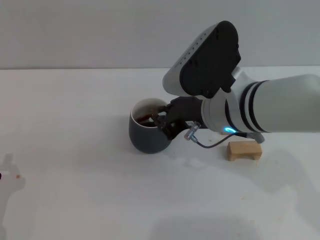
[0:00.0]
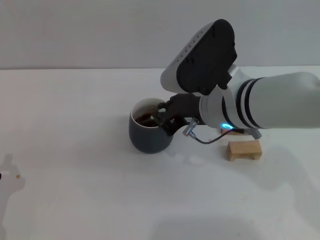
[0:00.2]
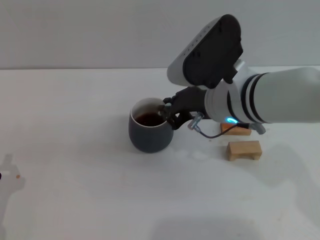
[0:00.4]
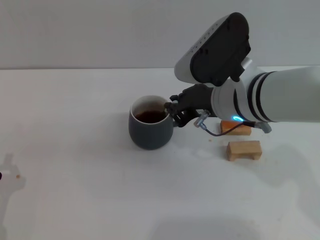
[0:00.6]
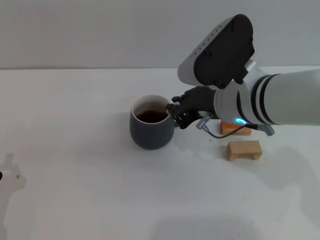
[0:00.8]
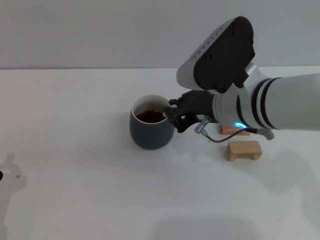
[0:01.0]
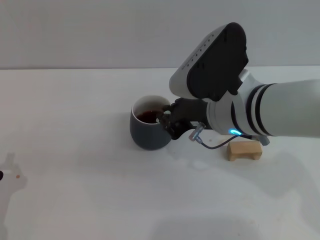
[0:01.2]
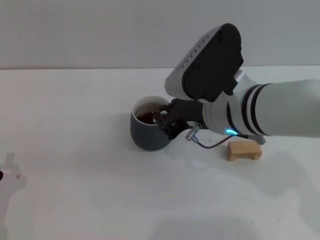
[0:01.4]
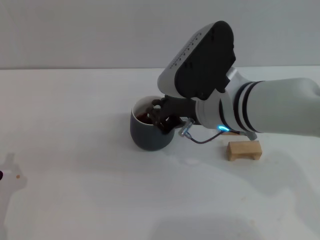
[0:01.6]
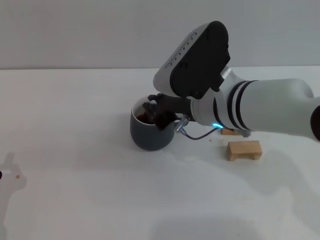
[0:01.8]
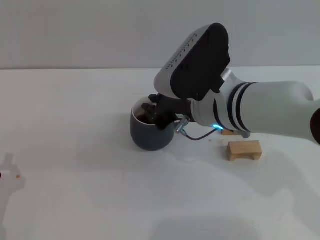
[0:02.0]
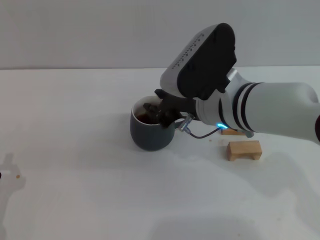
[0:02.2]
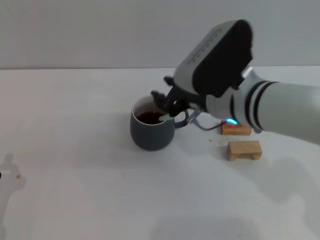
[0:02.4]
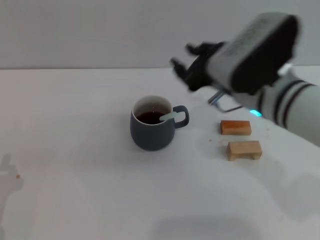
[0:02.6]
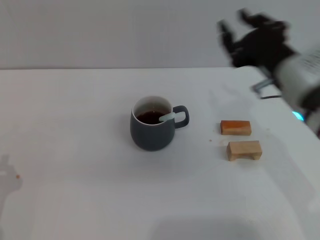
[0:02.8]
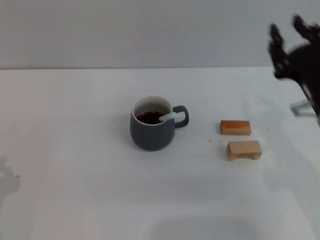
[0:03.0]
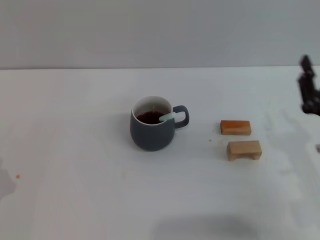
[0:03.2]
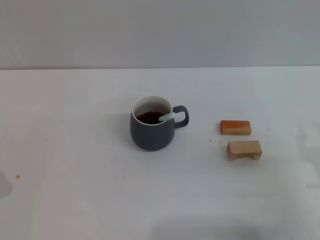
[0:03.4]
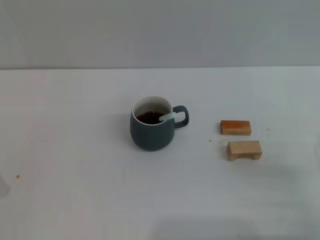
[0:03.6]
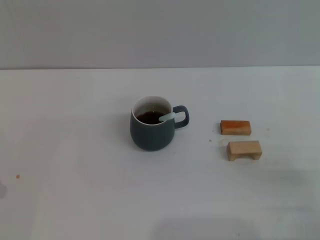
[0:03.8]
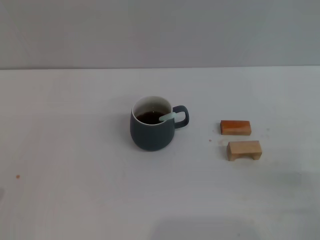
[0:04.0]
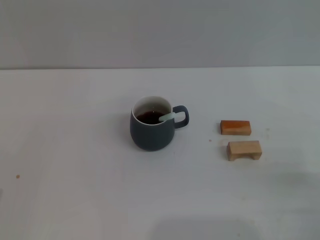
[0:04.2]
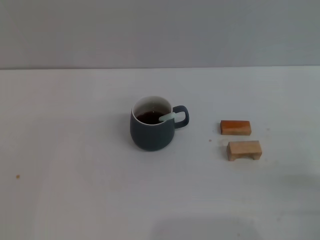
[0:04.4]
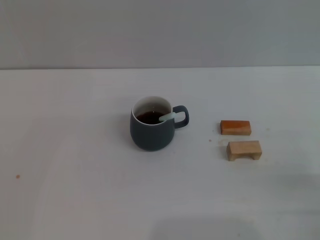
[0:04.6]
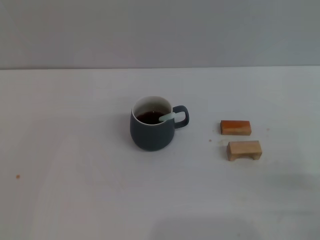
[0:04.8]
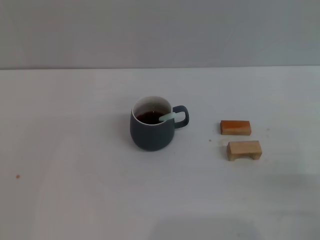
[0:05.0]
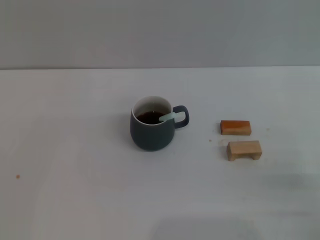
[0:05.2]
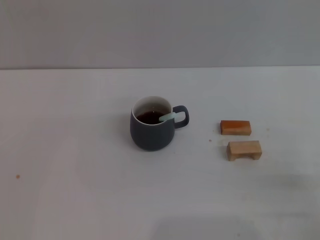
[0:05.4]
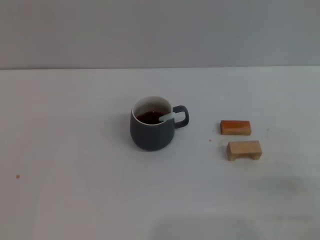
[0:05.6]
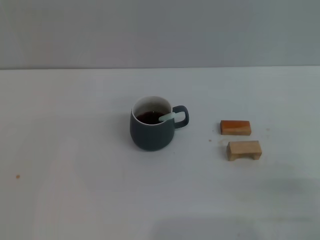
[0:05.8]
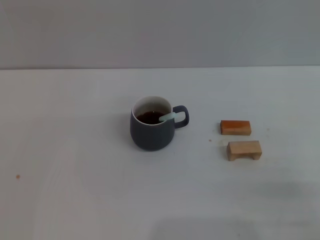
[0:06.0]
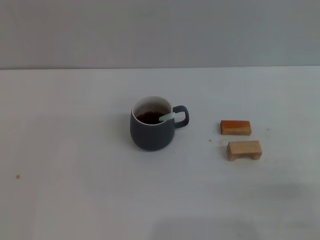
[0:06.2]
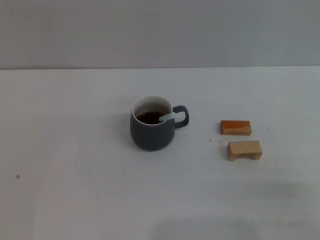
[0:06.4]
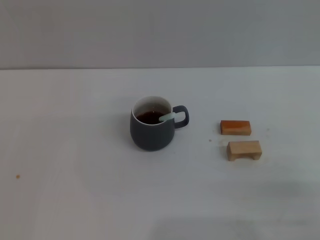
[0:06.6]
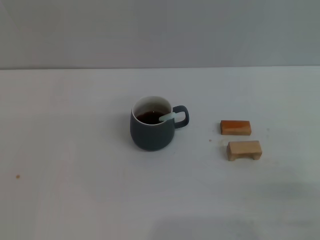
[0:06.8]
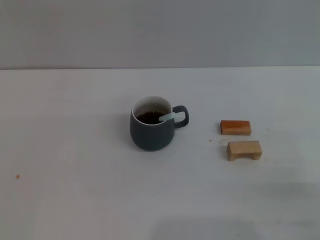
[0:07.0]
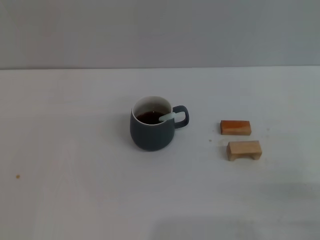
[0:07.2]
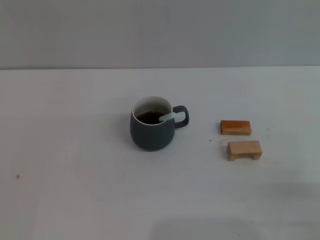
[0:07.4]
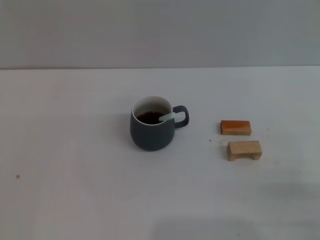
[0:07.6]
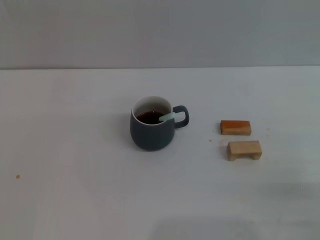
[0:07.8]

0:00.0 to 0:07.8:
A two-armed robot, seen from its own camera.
Task of the whole recording: Move the grey cup to the center, lift the blue spoon, stir it three times in the cup, and put the spoon into the cup.
Step, 0:00.0 to 0:02.4: Stir the coffee in the cup with the right gripper.
0:00.0 to 0:01.6: The grippers stay close to where they were, moving slightly.
0:01.6 to 0:03.2: The right gripper shifts roughly 20 cm to the right, downward and backward, and opens up.
0:03.2 to 0:04.6: The right gripper shifts roughly 5 cm to the right.

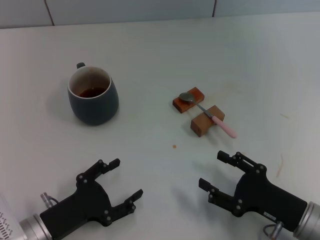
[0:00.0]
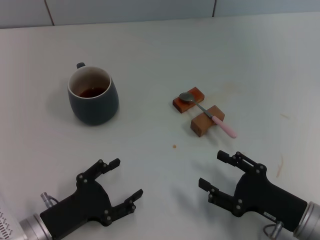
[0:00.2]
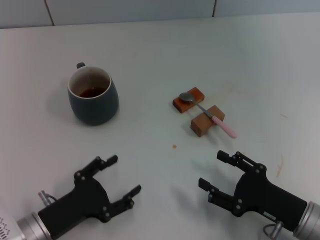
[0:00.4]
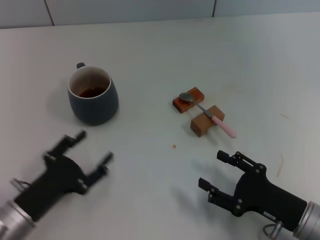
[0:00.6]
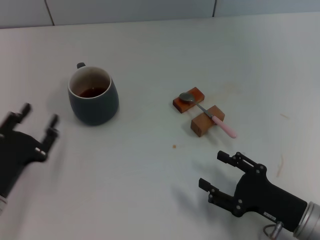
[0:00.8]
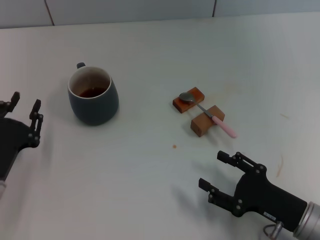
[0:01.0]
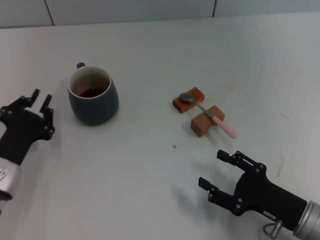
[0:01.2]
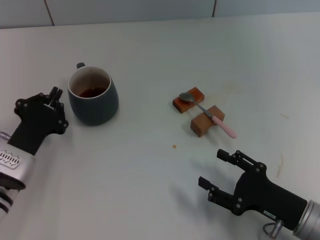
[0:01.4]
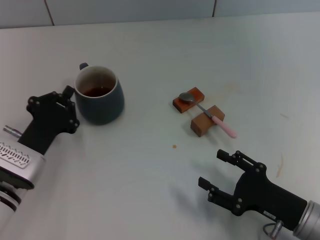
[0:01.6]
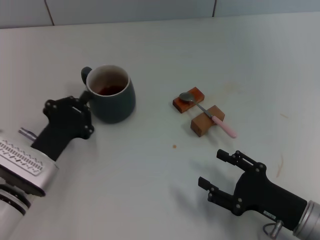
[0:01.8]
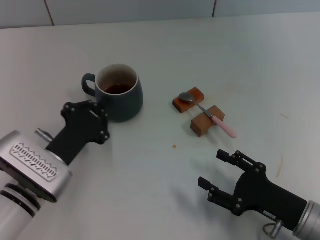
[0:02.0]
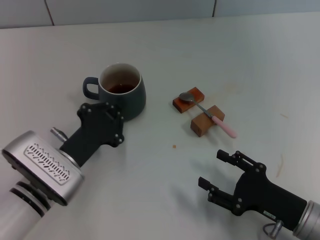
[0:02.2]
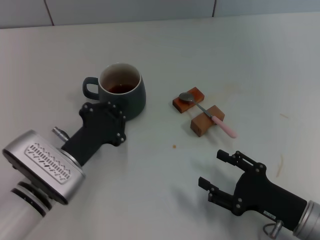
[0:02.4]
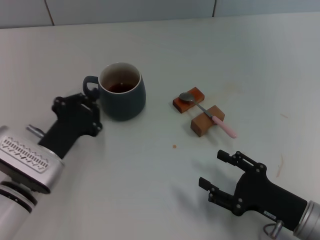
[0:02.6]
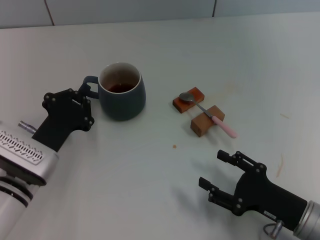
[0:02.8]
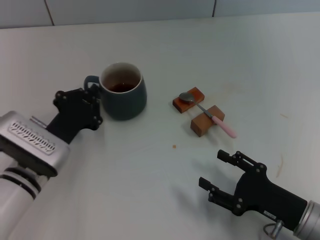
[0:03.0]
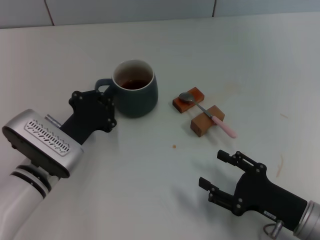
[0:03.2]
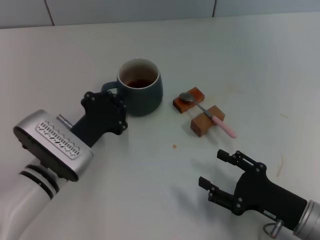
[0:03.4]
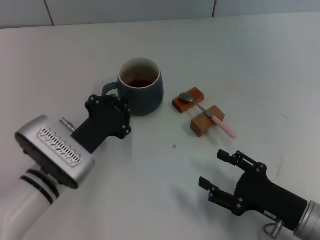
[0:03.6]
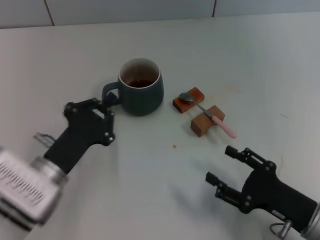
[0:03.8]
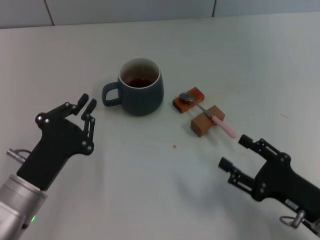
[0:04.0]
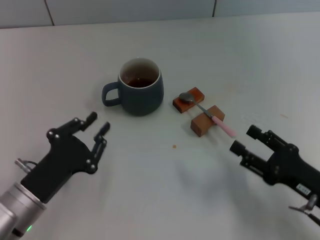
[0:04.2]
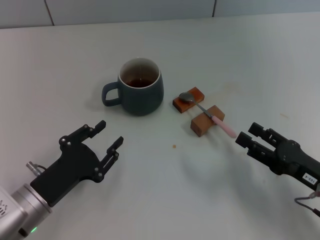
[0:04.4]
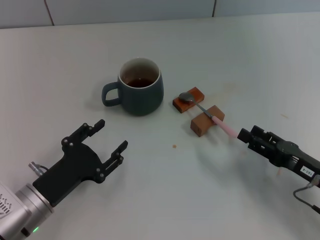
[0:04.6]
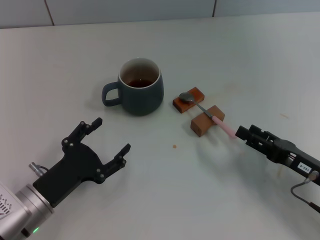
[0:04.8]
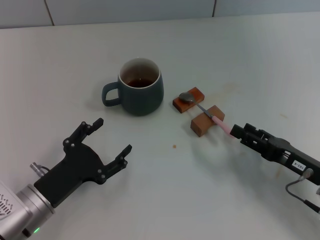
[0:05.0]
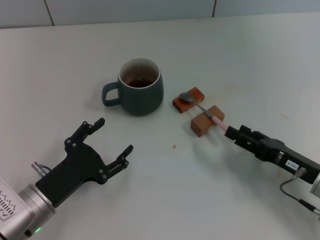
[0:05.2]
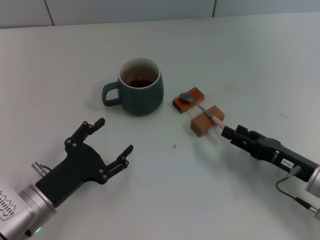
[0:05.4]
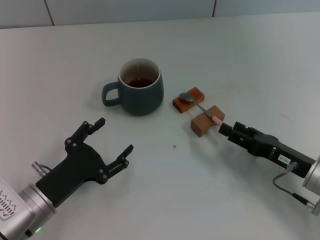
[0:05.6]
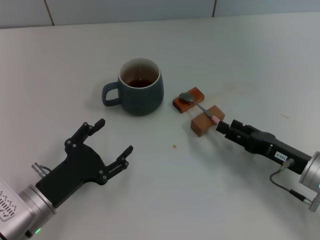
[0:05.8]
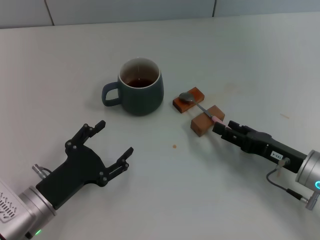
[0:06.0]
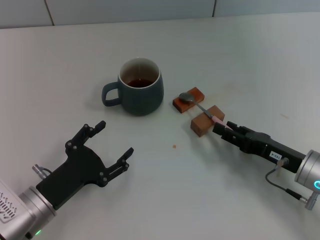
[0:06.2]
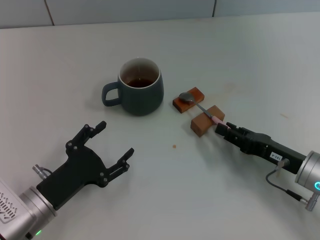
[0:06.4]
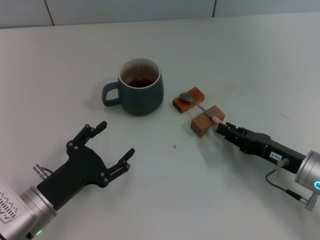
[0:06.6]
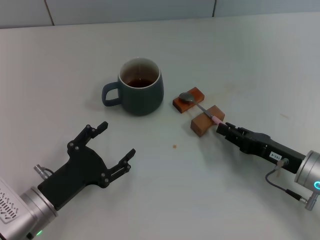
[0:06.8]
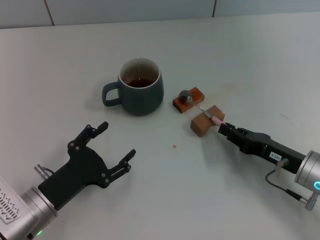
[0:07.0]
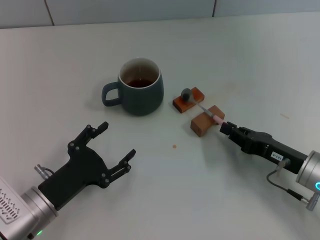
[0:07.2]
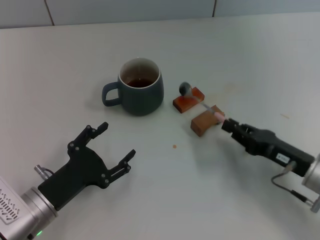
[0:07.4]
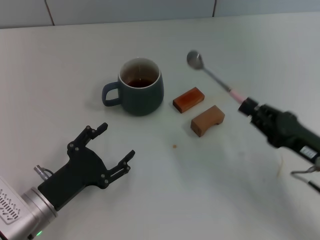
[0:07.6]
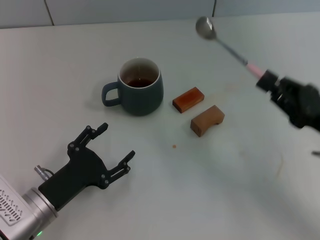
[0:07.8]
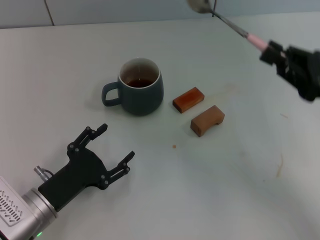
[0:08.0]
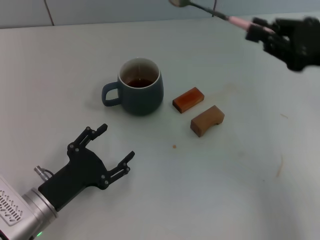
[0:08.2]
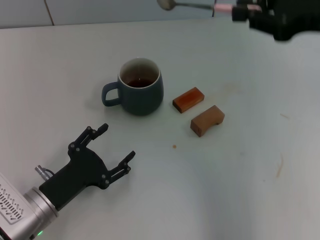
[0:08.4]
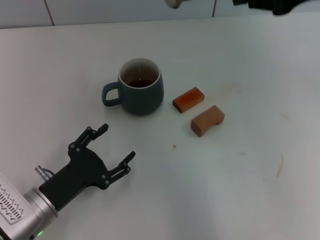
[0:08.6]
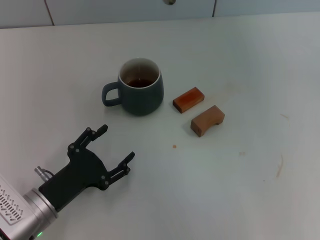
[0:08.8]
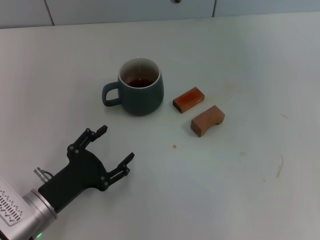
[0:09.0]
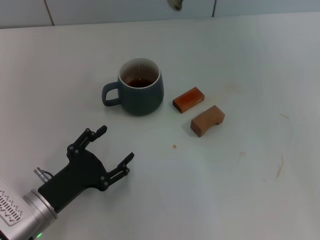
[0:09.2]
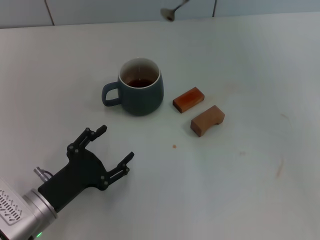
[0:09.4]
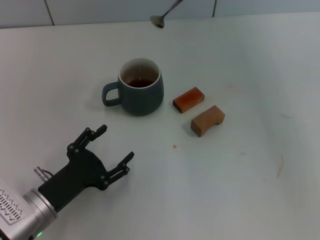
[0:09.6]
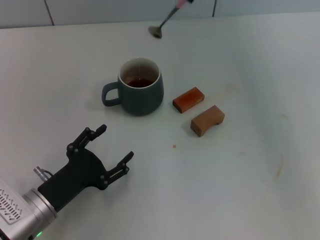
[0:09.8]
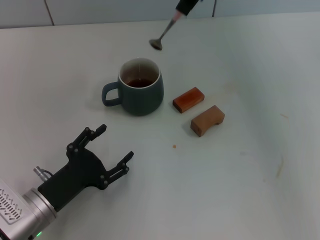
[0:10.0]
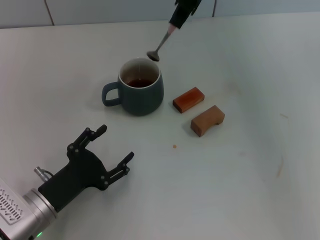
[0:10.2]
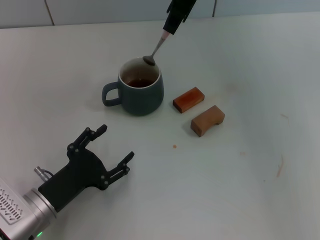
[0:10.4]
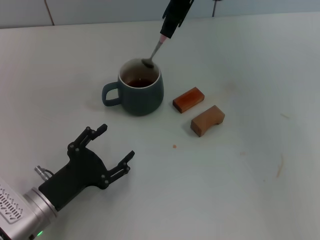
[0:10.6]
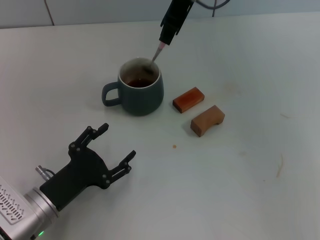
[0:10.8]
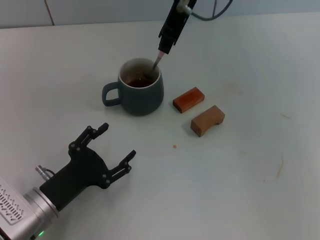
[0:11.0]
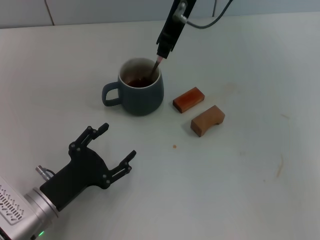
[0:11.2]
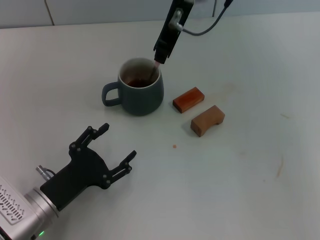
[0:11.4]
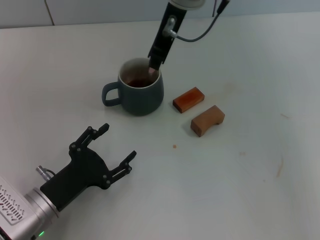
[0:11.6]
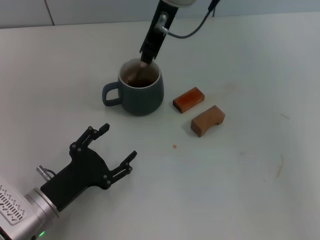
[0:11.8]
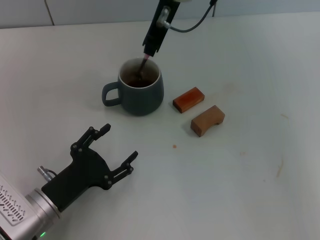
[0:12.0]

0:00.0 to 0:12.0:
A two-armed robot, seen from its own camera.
Task of the whole recording: Move the grey cup to the center, lift the pink spoon, stir it three times in the cup, and put the spoon into the cup.
Step, 0:00.0 to 0:03.8: Move the cup with coffee to the center of view with the left gripper.
Step, 0:04.0 to 0:08.0: Pick up the spoon with the right gripper.
0:00.0 to 0:01.6: The left gripper goes roughly 10 cm forward, and closes up.
0:01.6 to 0:03.0: The grippers make only small movements.
0:03.0 to 0:04.4: The left gripper heads backward, covering roughly 5 cm. The right gripper shifts by approximately 5 cm.
0:04.4 to 0:06.0: The right gripper shifts approximately 5 cm forward. Meanwhile the left gripper opens its fingers.
0:06.0 to 0:07.6: The right gripper closes up.
0:07.6 to 0:09.0: The right gripper heads upward, covering about 35 cm.
0:09.0 to 0:10.4: The right gripper travels to the left and forward by about 15 cm.
0:10.4 to 0:12.0: The right gripper moves downward, some 5 cm.

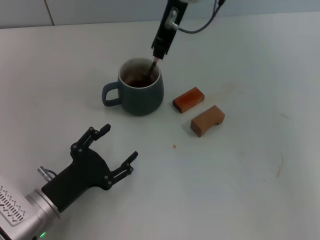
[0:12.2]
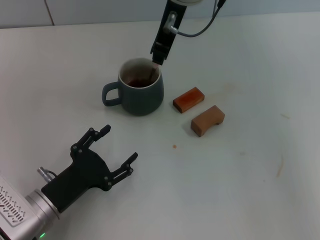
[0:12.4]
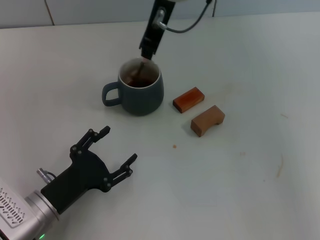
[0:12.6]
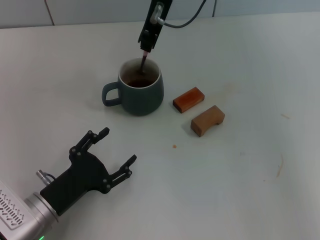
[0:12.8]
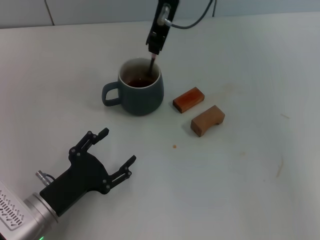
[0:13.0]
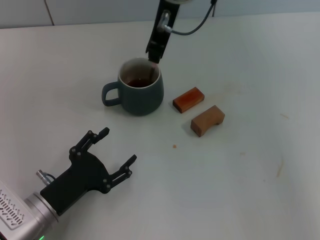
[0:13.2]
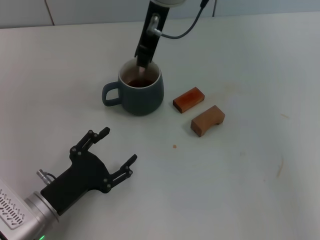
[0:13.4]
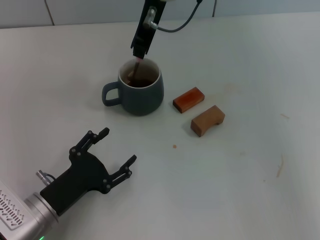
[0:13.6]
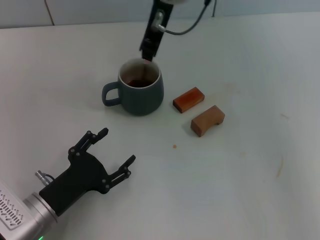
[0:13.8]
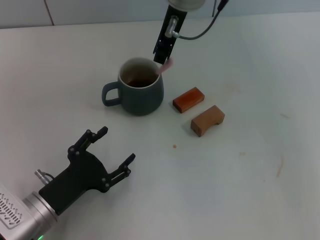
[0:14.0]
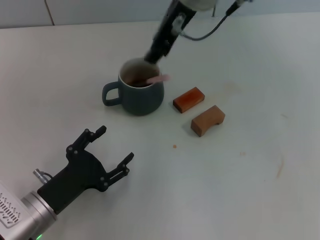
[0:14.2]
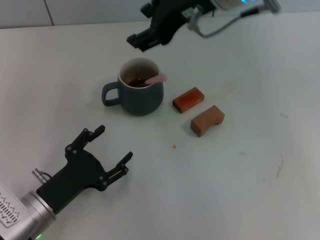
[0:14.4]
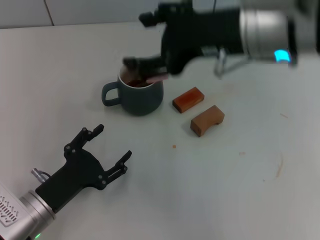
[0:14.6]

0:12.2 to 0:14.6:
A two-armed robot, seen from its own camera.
Task of the whole recording: Move the grey cup to the center, lift the pink spoon, stir it three times in the cup, and put the spoon into the cup.
Step, 0:12.2 to 0:14.2: Stir the coffee in the cup with the right gripper.
0:12.2 to 0:13.4: The grippers make only small movements.
0:13.4 to 0:14.6: The right gripper travels to the right and backward by approximately 15 cm, and opens.
